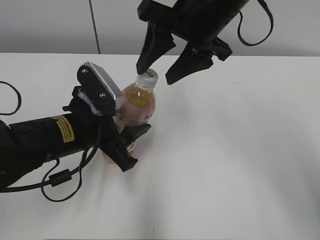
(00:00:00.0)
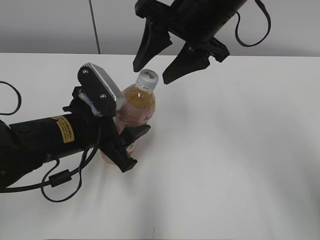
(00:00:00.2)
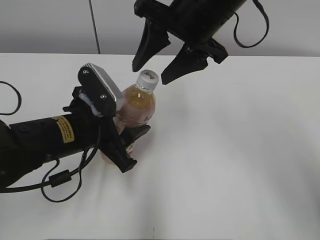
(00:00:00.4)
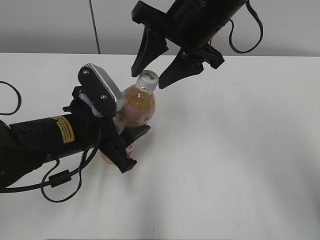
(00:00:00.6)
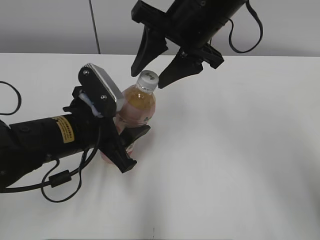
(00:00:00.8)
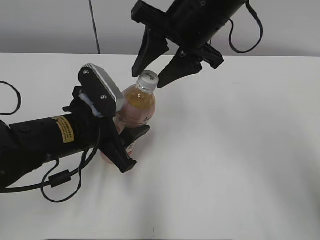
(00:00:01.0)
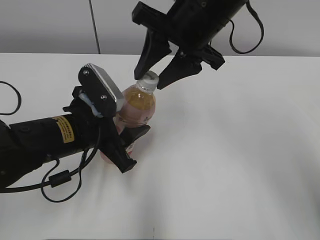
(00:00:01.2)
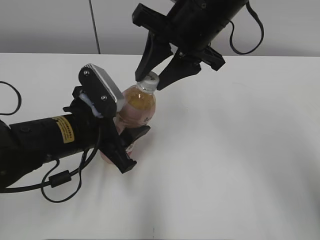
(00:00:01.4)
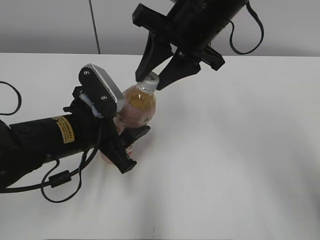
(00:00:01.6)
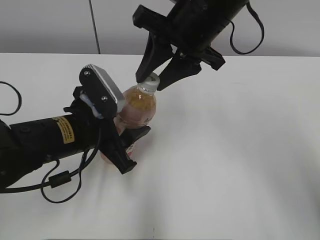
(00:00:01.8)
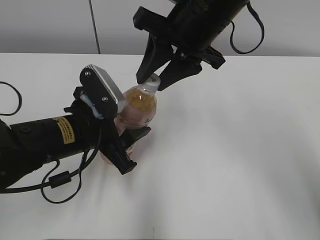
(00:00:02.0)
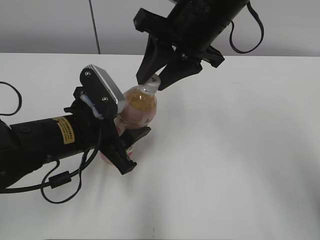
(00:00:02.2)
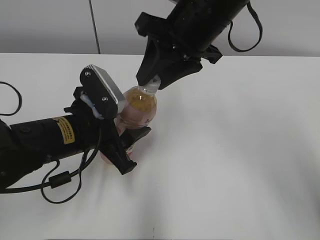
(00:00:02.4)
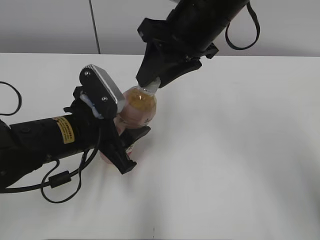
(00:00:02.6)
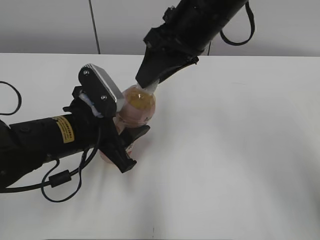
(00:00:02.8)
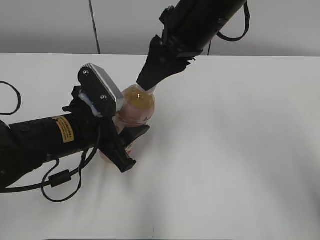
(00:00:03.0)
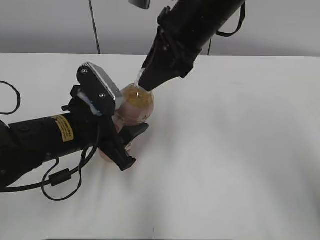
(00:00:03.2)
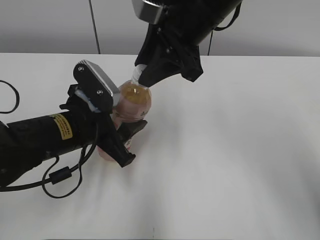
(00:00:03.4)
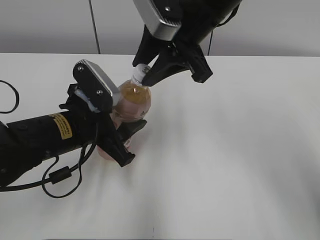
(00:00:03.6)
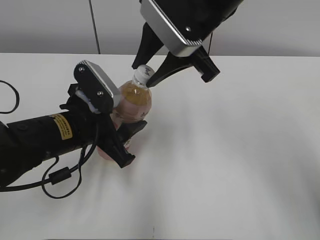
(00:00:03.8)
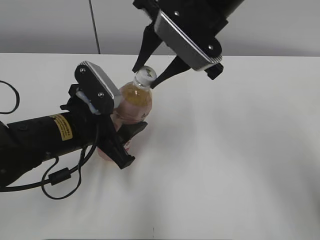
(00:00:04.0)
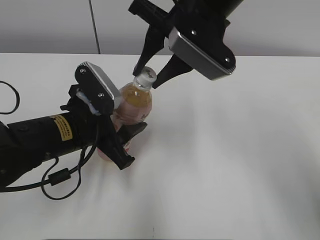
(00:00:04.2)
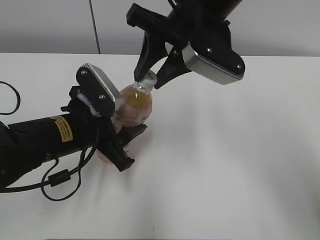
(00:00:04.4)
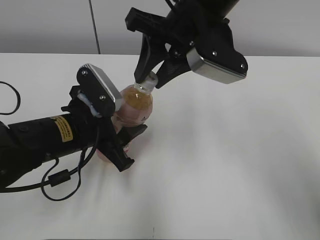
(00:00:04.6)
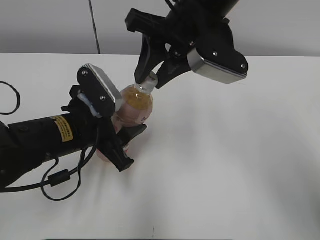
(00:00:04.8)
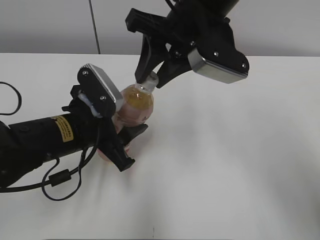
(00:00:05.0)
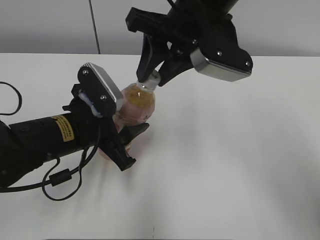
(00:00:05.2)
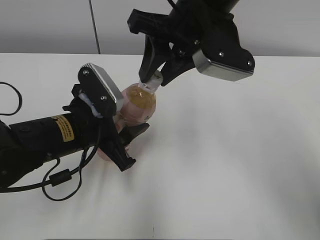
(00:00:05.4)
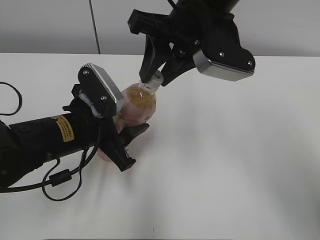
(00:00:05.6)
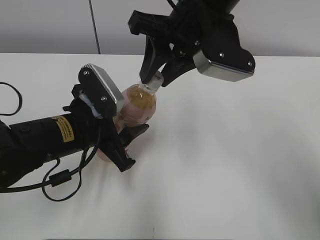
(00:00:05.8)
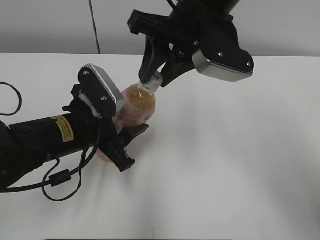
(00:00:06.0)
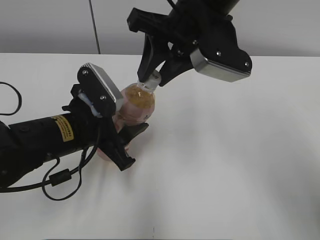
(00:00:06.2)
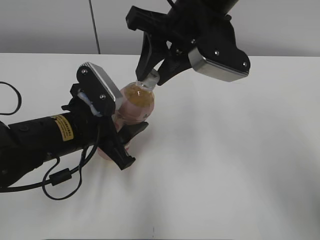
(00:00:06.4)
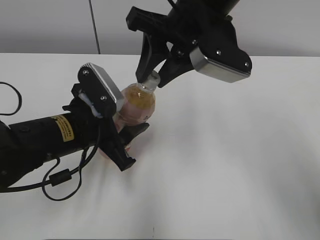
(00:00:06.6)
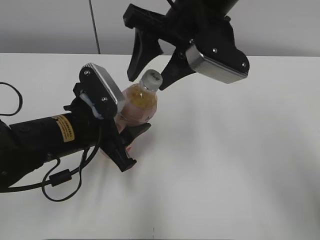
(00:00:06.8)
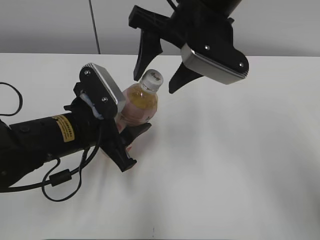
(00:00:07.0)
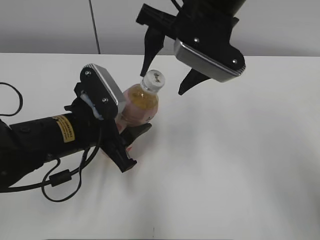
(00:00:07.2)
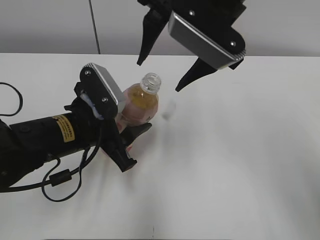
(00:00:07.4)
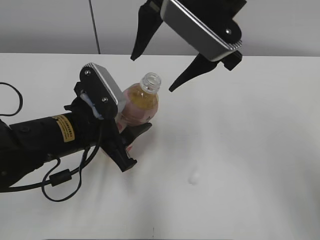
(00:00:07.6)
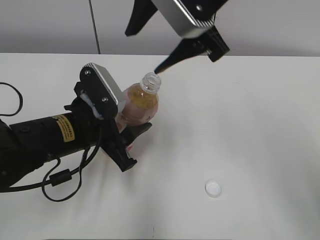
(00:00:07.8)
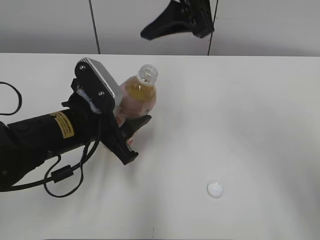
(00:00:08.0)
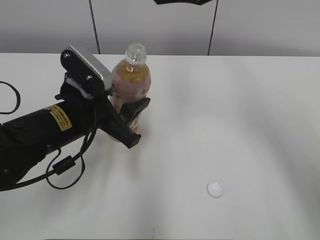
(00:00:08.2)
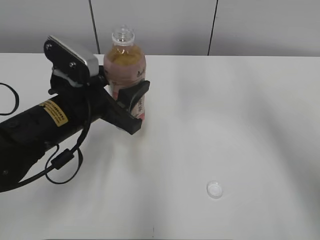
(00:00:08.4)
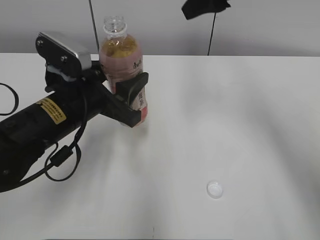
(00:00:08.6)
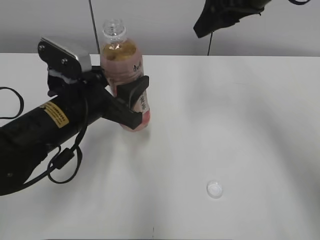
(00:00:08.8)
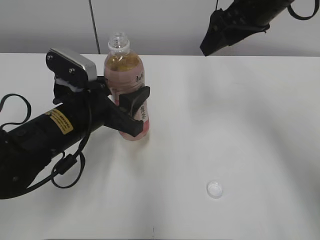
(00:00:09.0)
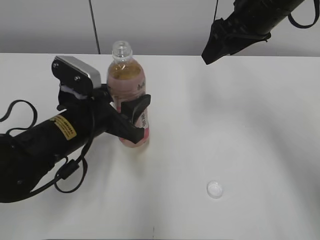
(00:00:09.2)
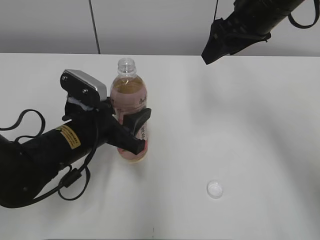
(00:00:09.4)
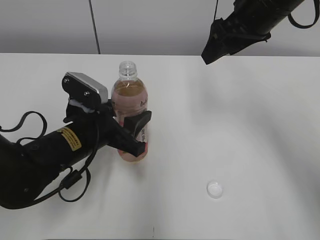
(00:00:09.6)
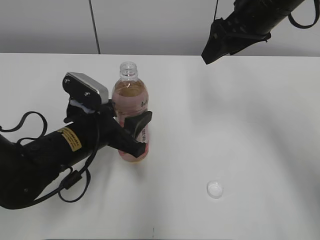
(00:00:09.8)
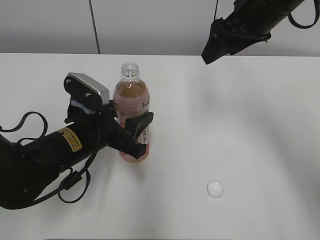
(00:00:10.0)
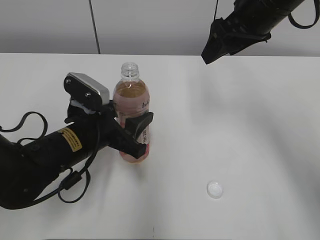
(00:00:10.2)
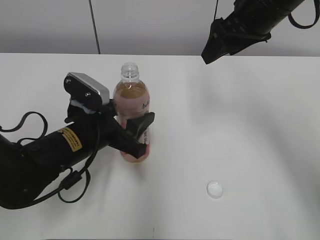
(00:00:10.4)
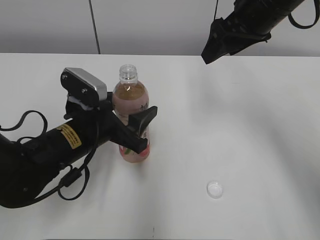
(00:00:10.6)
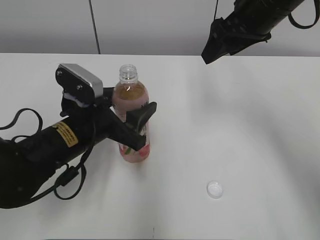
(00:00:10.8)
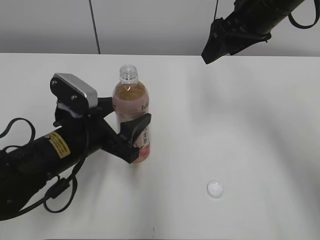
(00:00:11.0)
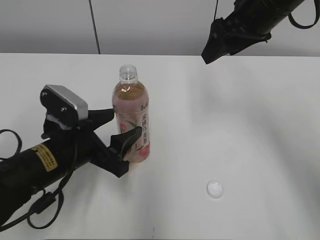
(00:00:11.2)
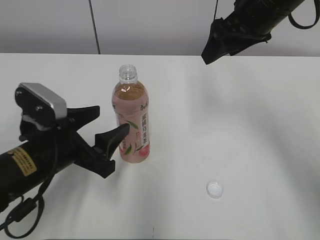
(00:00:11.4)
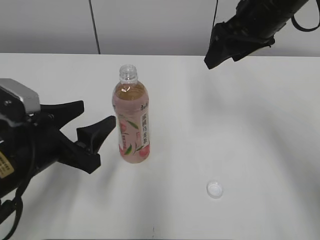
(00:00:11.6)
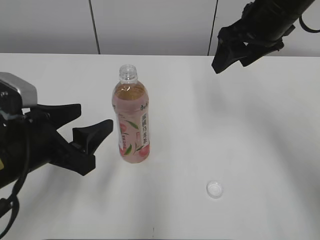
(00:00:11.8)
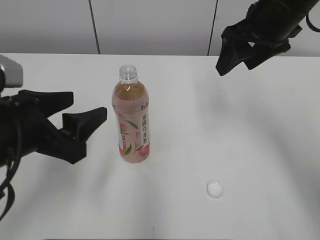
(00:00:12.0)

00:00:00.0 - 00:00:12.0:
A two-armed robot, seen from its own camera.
Step, 00:00:08.2 - 00:00:10.8: Place the Peach Oolong Tea with the left hand.
00:00:00.0 - 00:00:01.6: The right gripper closes its fingers.
00:00:04.4 - 00:00:06.0: The grippers stay close to where they were, moving slightly.
00:00:06.0 - 00:00:07.6: The right gripper opens.
00:00:07.6 - 00:00:09.0: The right gripper shifts about 10 cm to the right and forward.
00:00:09.0 - 00:00:10.4: The grippers make only small movements.
00:00:10.4 - 00:00:12.0: The left gripper moves upward, backward and to the left, roughly 15 cm.

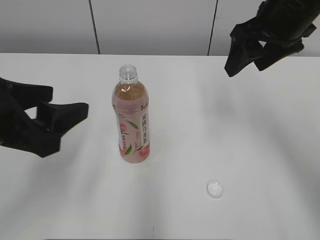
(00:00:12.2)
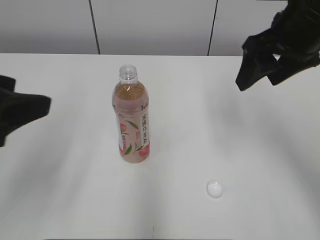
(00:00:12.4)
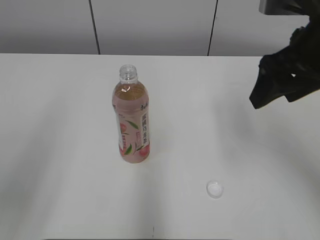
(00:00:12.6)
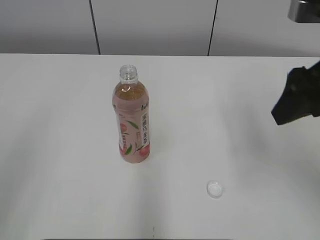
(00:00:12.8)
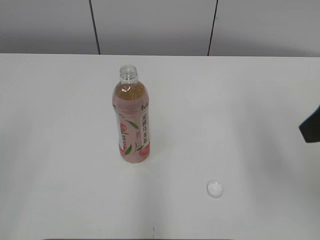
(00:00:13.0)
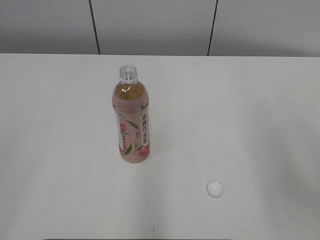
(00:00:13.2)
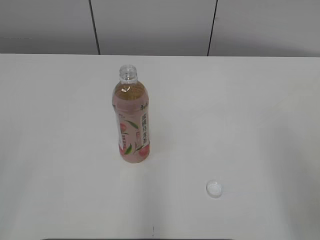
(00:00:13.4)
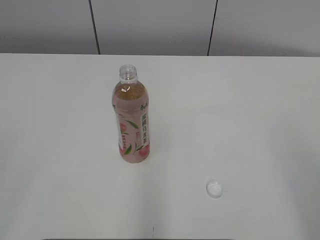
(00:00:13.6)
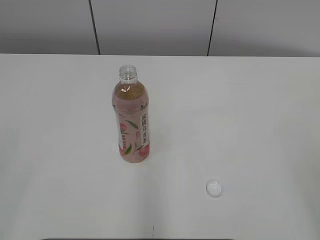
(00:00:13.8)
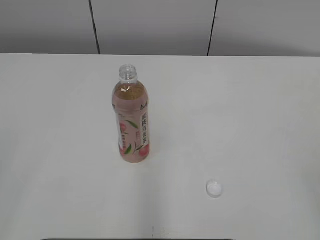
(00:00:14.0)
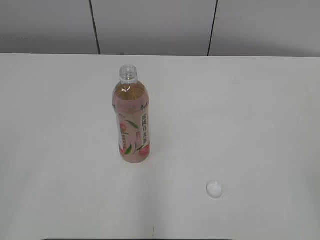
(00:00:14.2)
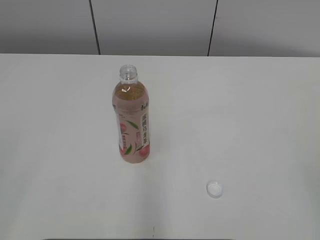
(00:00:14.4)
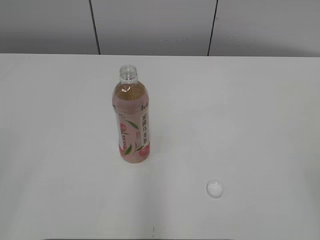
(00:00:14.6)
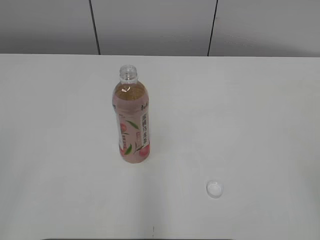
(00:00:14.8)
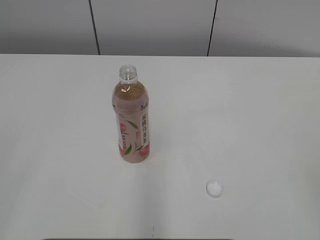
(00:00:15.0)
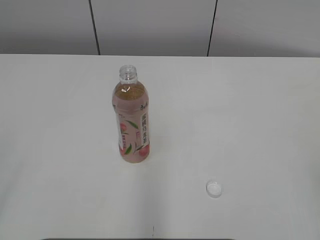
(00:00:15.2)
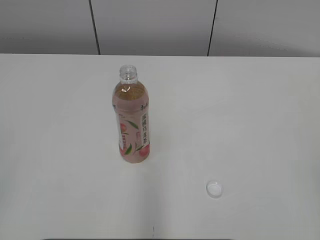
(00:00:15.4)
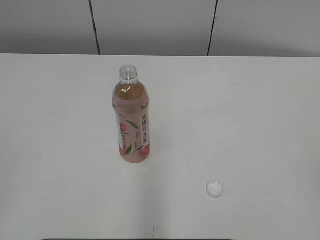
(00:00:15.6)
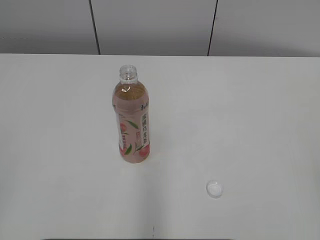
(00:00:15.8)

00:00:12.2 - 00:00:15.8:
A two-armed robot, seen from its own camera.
00:00:12.2 - 00:00:14.0: The right gripper moves backward, roughly 35 cm, and closes, while the left gripper travels backward and to the left by some 20 cm.
